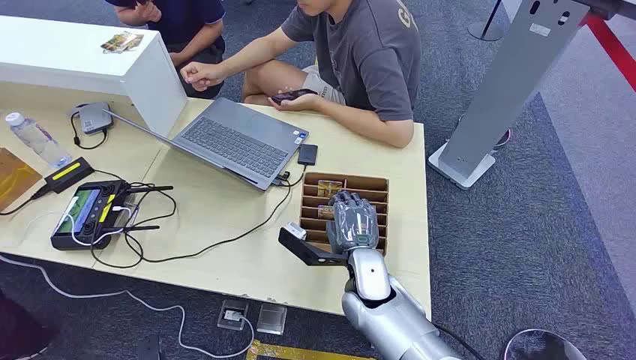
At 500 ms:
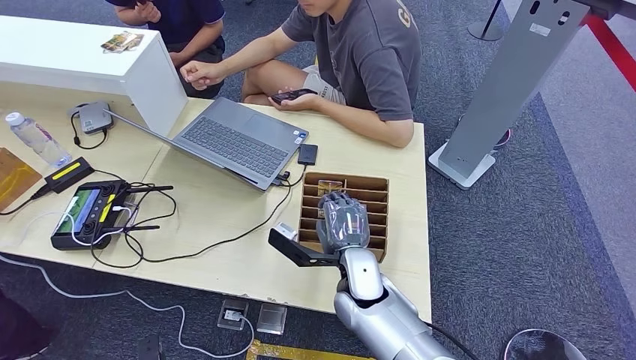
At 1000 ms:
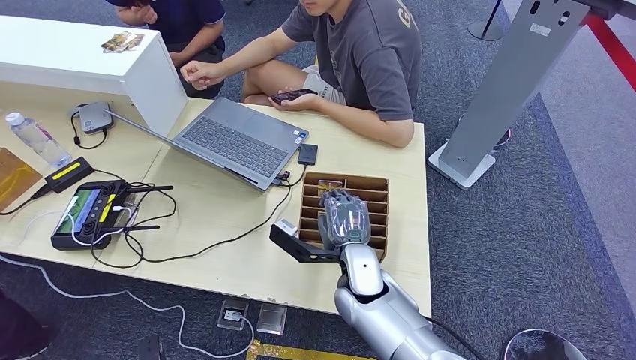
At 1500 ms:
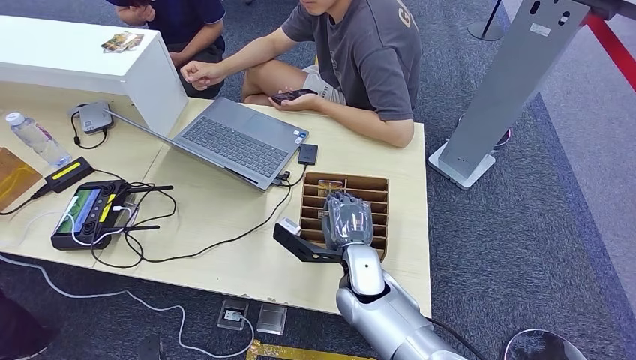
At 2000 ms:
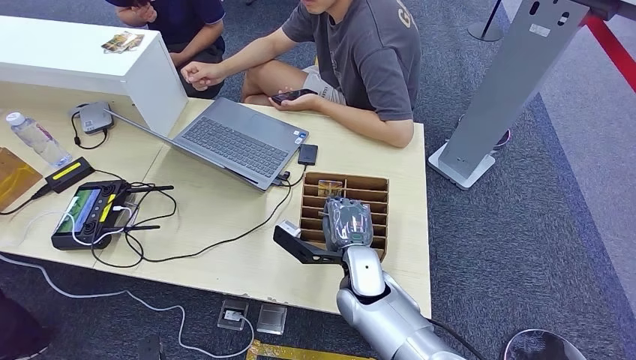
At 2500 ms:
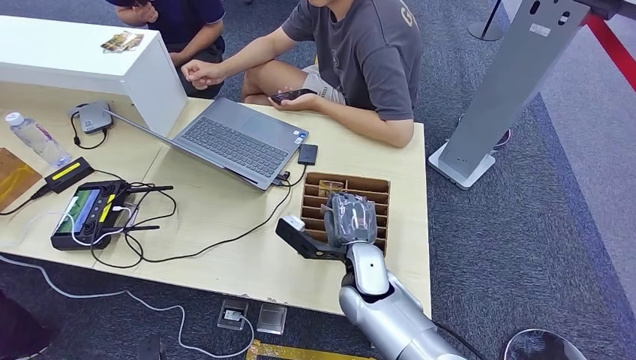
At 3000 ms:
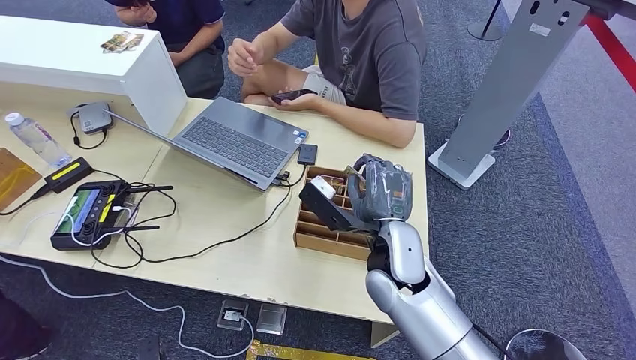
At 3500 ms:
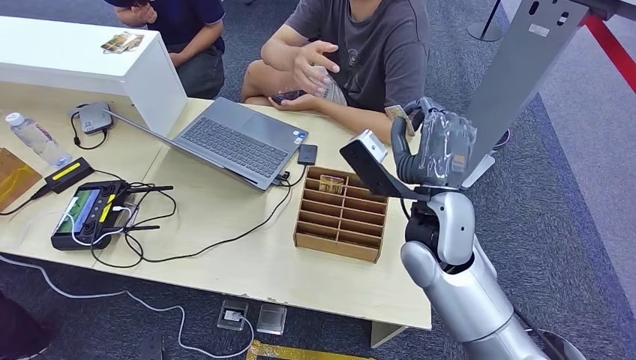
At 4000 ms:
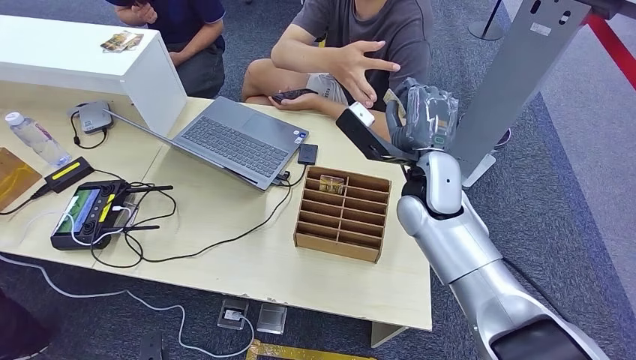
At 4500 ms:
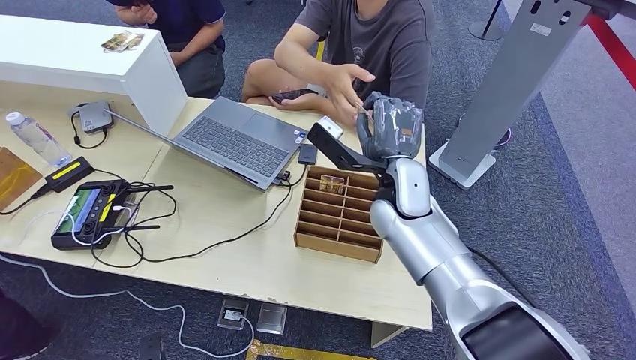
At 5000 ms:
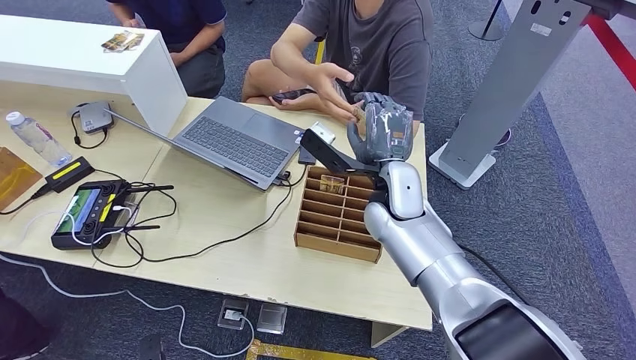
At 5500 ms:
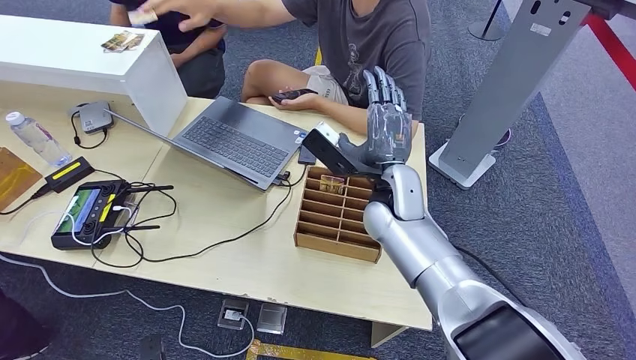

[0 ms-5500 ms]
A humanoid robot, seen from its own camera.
Step, 0 ms to 3000 ms: Pick up the key card from the card box.
Step, 4000 ms to 5000 ms: Hand the key card to the target.
2000 ms to 3500 ms: The right hand shifts about 20 cm upward and to the right.
3500 ms to 5500 ms: The right hand is displaced forward and to the left by approximately 10 cm.

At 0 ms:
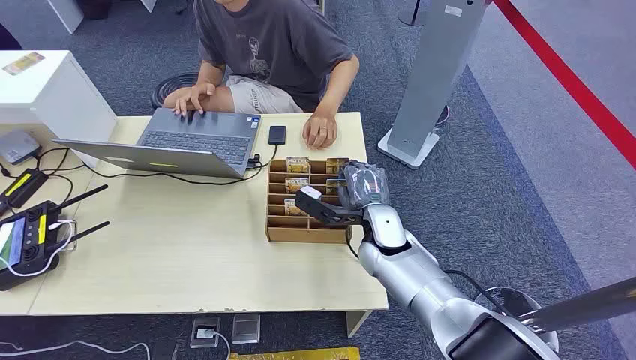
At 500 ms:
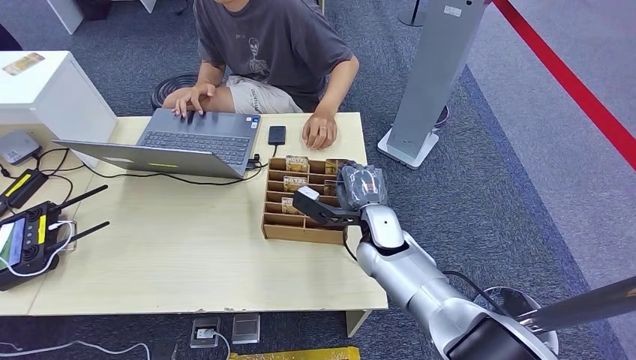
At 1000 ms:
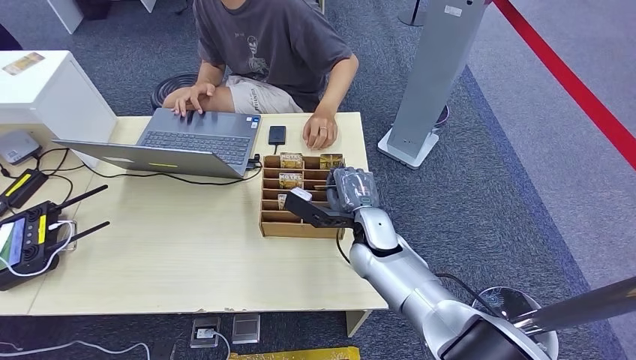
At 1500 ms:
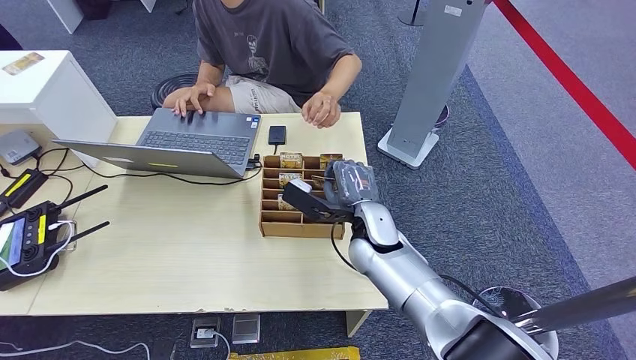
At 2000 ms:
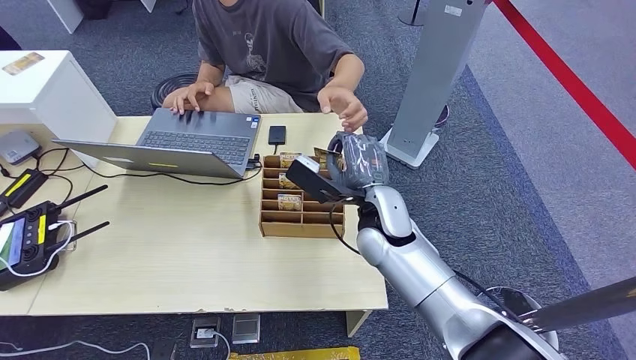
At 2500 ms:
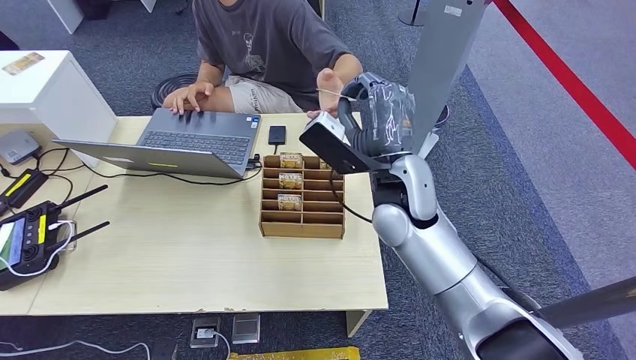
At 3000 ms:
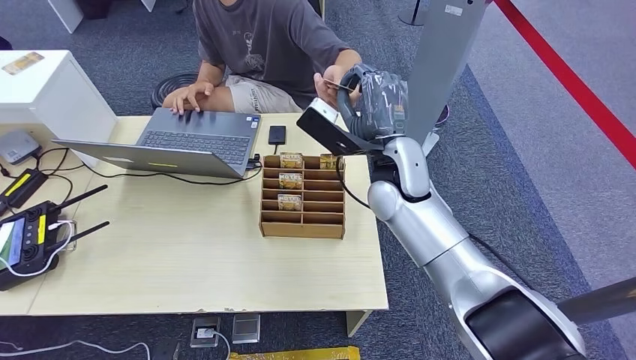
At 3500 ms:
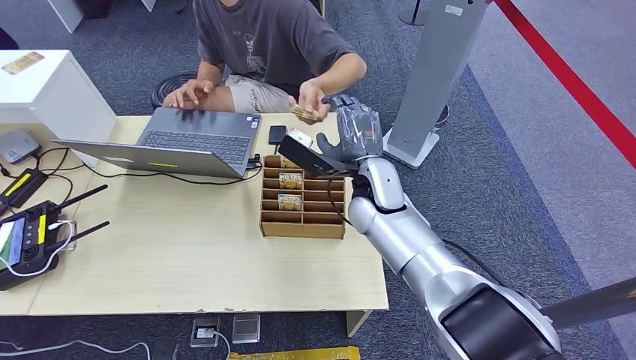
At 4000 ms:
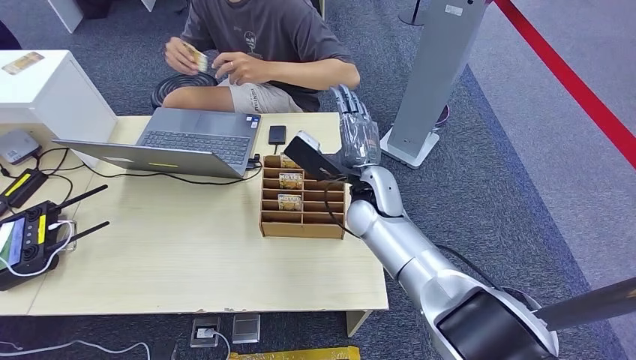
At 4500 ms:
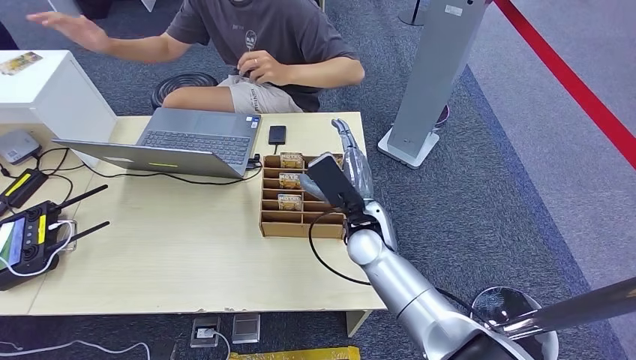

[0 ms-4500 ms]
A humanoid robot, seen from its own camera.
Step, 0 ms to 1500 ms: Pick up the key card from the card box.
Step, 2000 ms to 4500 ms: Hand the key card to the target.
2000 ms to 4500 ms: The right hand travels upward and back again, roughly 10 cm each way.

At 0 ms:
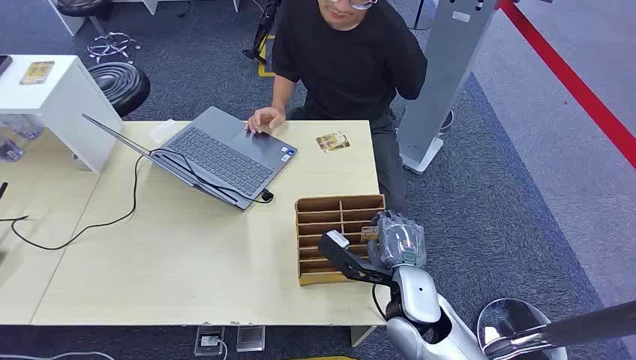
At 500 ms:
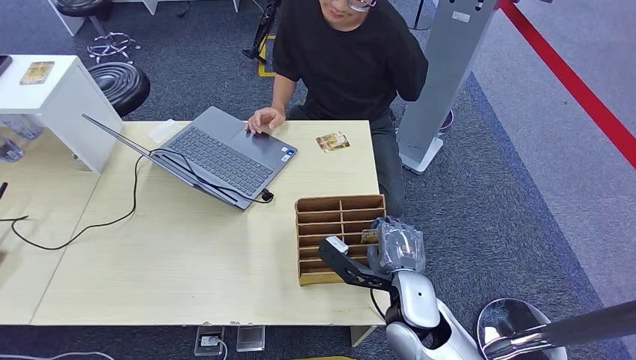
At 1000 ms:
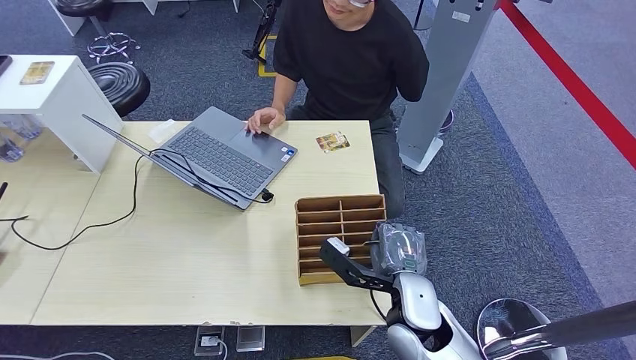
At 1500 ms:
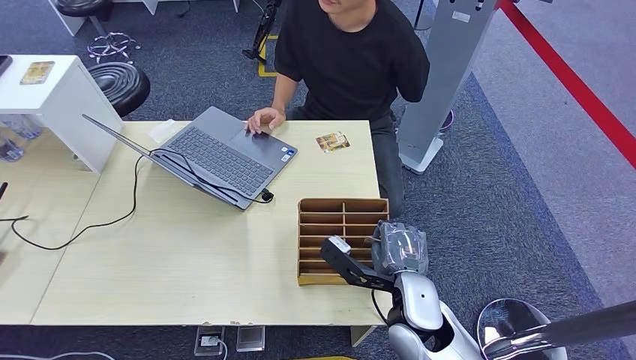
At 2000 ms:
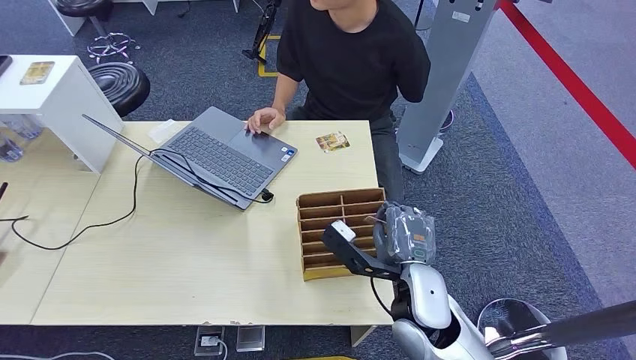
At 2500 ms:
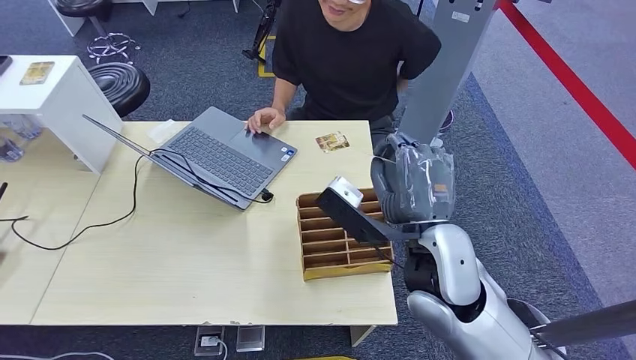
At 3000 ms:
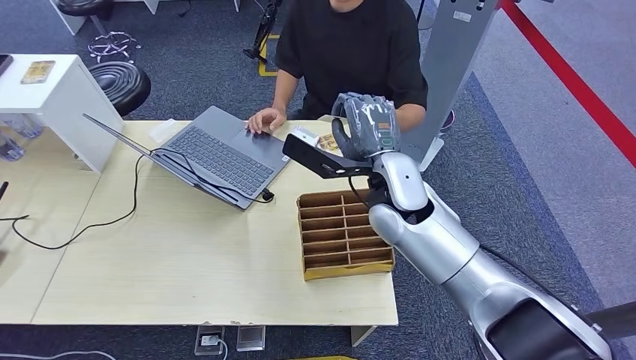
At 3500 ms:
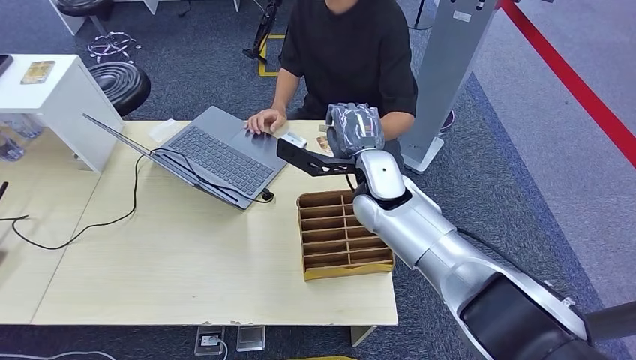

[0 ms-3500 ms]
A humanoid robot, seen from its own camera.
Step, 0 ms to 2000 ms: Pick up the key card from the card box.
Step, 3000 ms to 3500 ms: Hand the key card to the target.
2000 ms to 3500 ms: The right hand goes some 20 cm forward and upward.

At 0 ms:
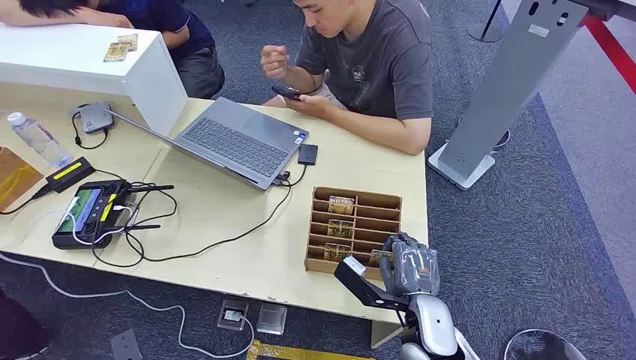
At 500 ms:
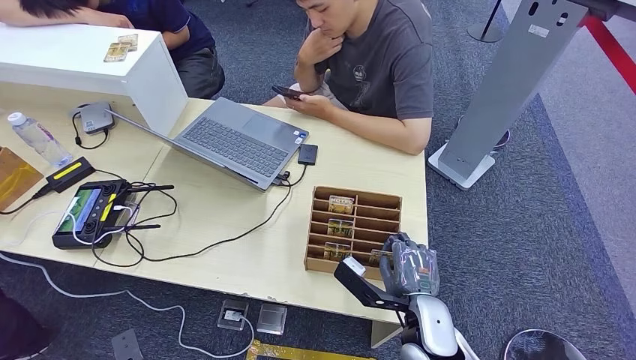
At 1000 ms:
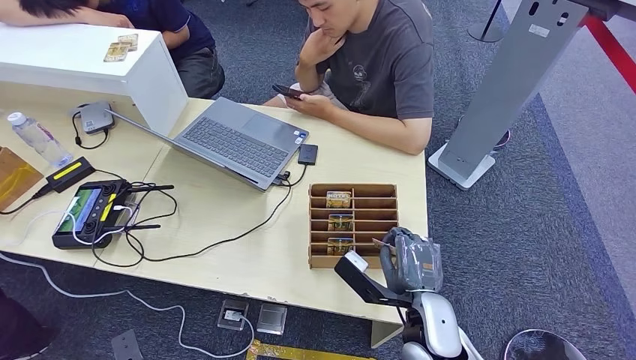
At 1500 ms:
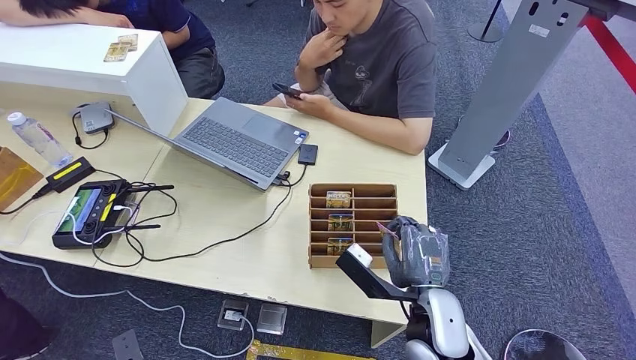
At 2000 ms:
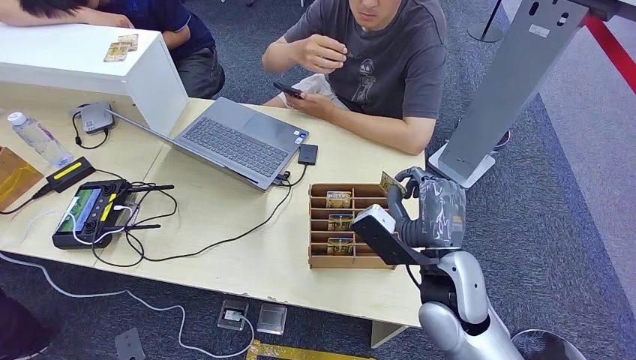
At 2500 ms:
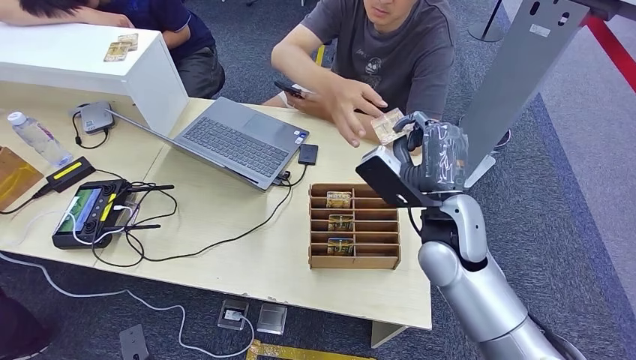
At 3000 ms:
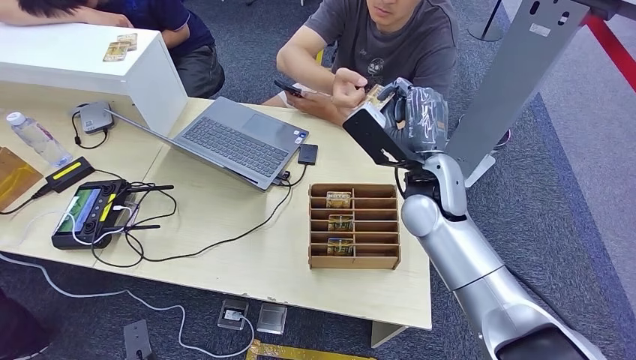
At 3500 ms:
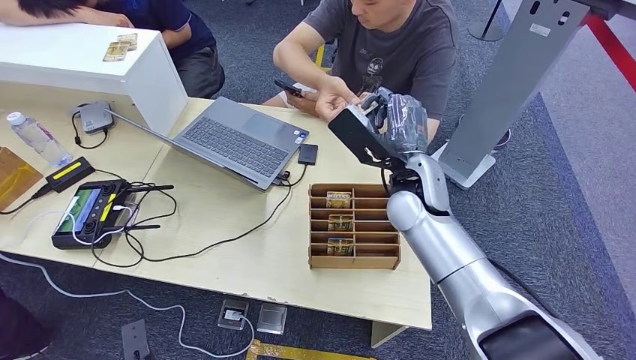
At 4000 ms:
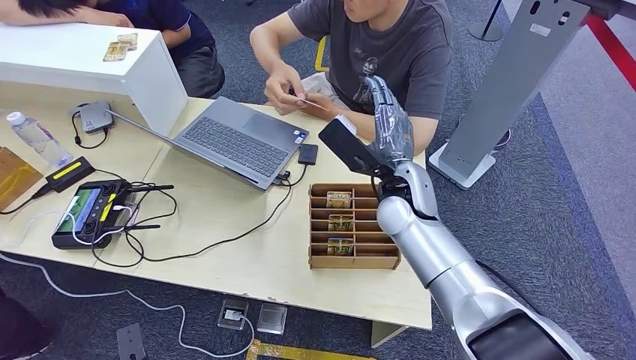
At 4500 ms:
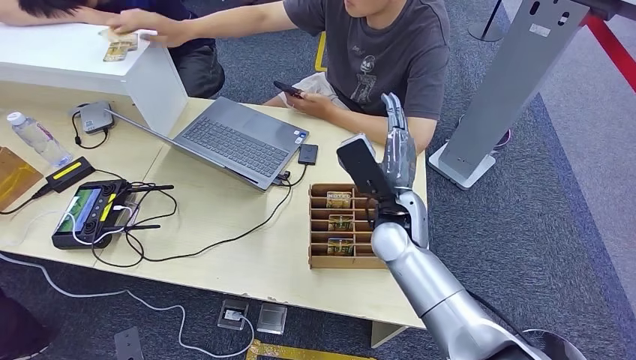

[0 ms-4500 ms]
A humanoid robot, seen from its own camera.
Step, 0 ms to 1500 ms: Pick up the key card from the card box.
Step, 2000 ms to 4500 ms: Hand the key card to the target.
2000 ms to 4500 ms: The right hand moves forward and to the left, some 10 cm.
